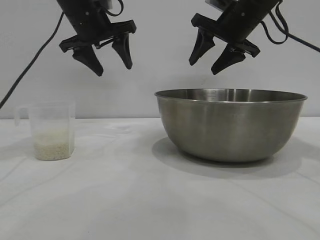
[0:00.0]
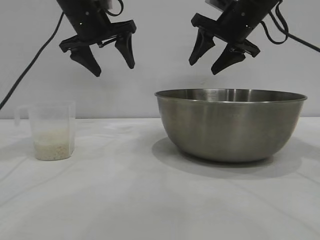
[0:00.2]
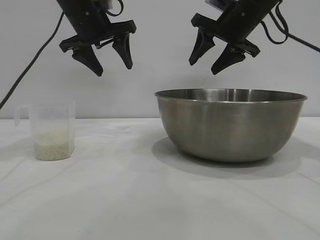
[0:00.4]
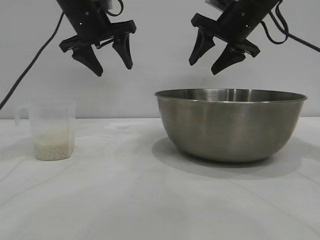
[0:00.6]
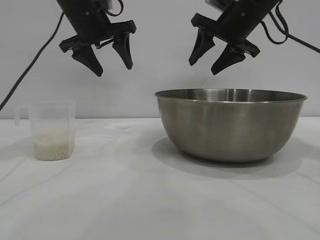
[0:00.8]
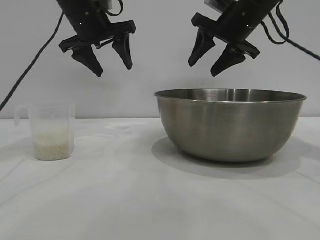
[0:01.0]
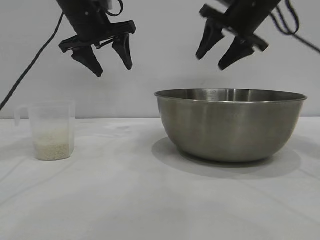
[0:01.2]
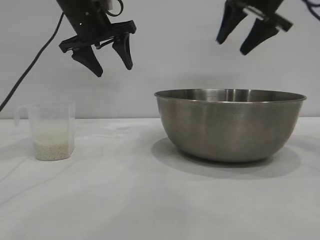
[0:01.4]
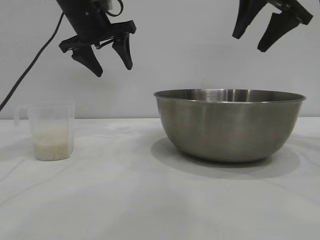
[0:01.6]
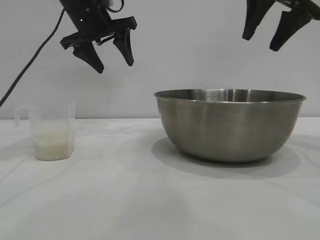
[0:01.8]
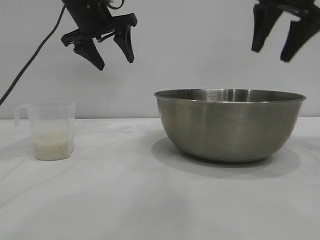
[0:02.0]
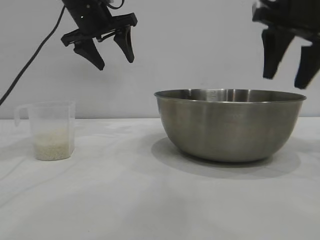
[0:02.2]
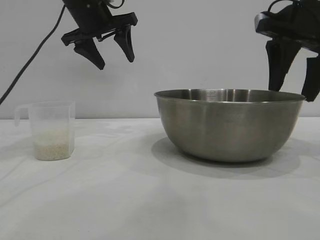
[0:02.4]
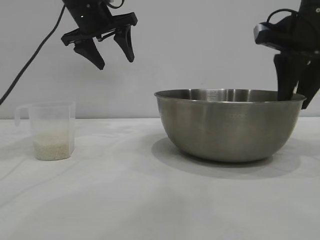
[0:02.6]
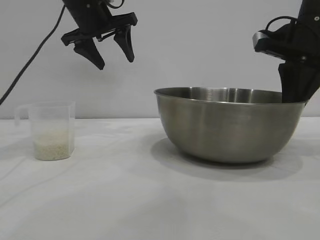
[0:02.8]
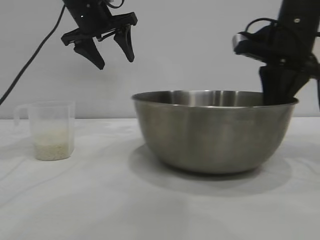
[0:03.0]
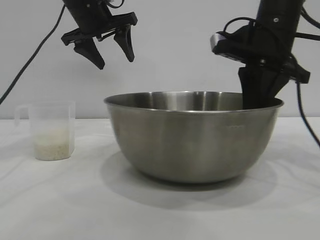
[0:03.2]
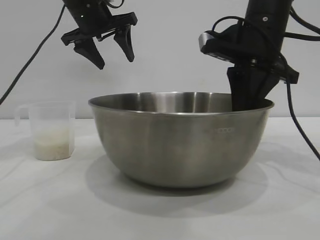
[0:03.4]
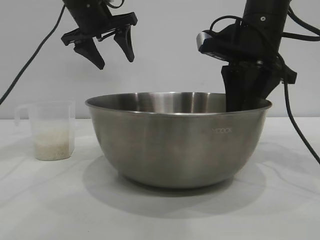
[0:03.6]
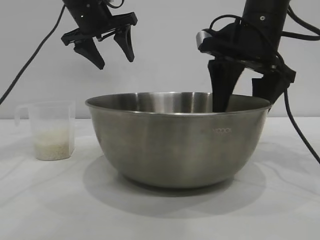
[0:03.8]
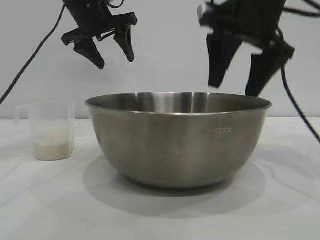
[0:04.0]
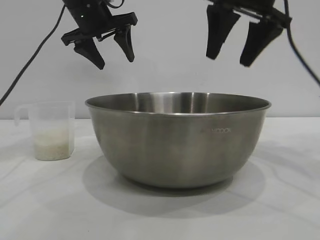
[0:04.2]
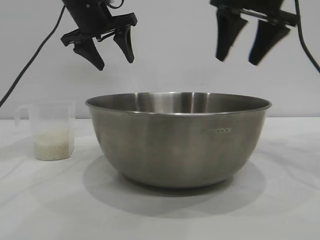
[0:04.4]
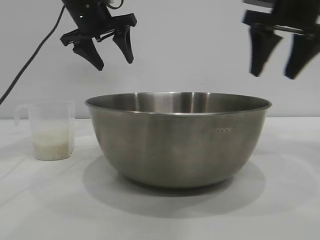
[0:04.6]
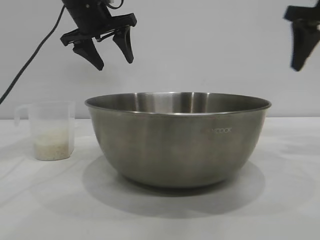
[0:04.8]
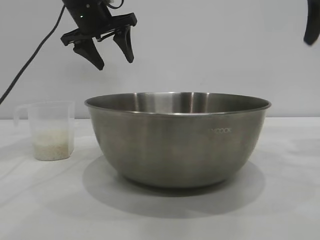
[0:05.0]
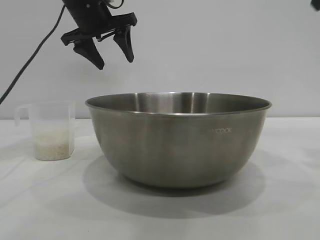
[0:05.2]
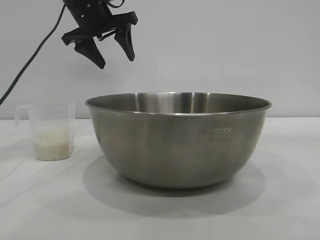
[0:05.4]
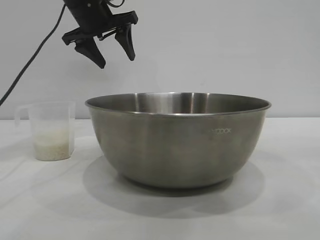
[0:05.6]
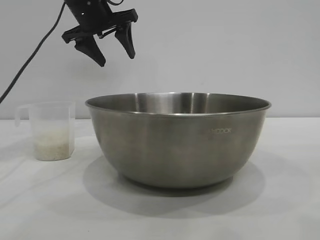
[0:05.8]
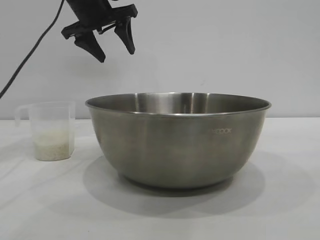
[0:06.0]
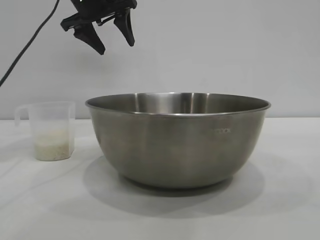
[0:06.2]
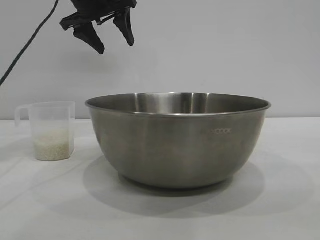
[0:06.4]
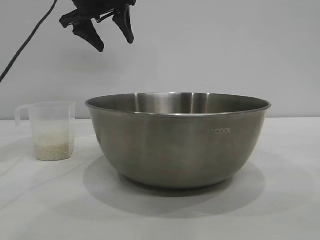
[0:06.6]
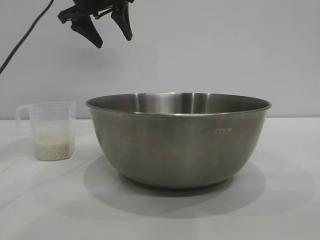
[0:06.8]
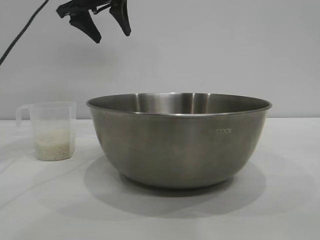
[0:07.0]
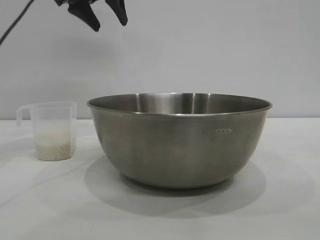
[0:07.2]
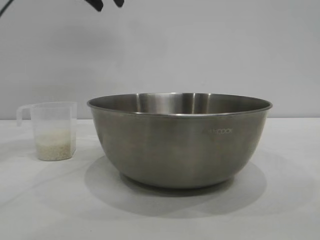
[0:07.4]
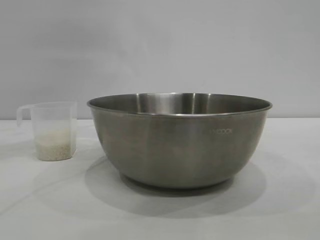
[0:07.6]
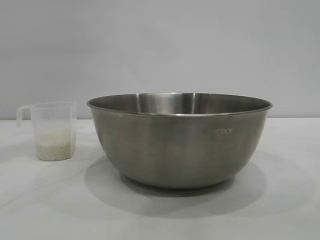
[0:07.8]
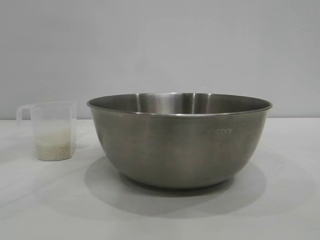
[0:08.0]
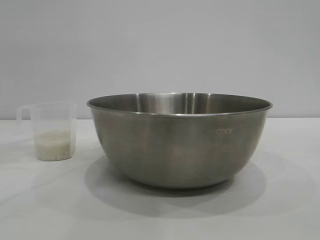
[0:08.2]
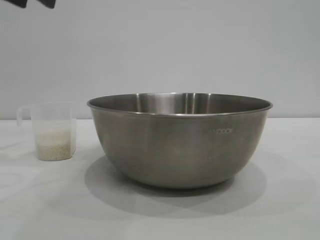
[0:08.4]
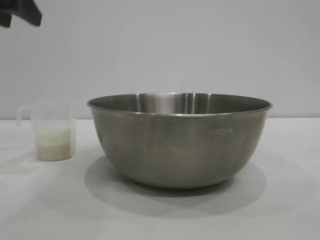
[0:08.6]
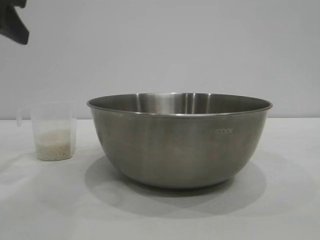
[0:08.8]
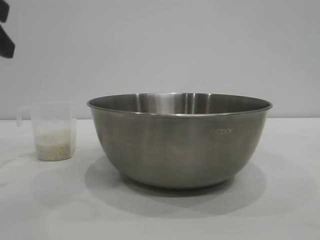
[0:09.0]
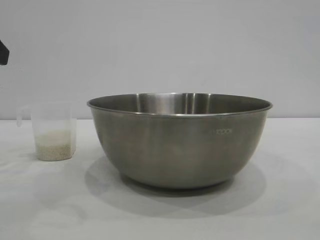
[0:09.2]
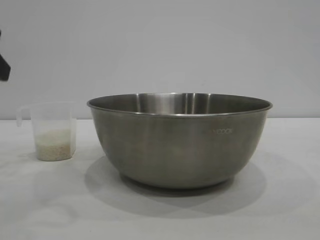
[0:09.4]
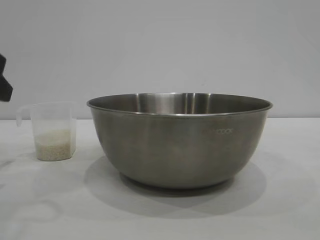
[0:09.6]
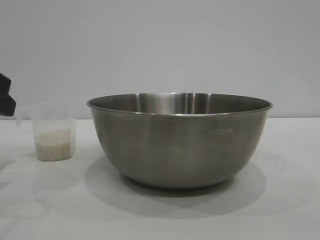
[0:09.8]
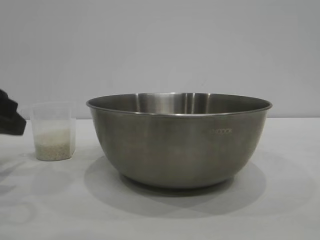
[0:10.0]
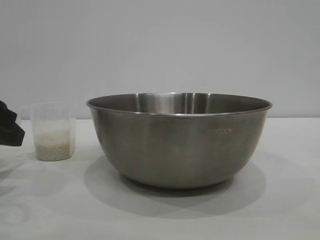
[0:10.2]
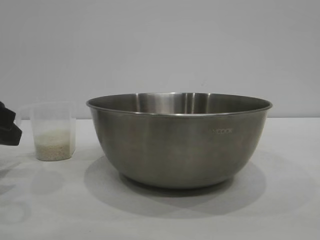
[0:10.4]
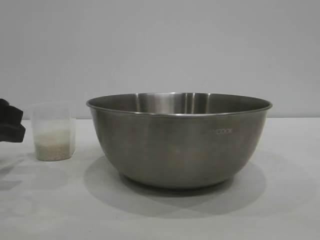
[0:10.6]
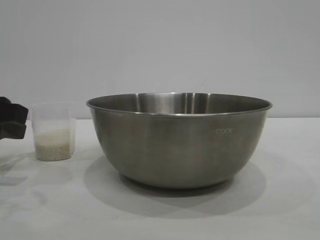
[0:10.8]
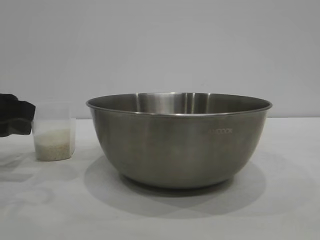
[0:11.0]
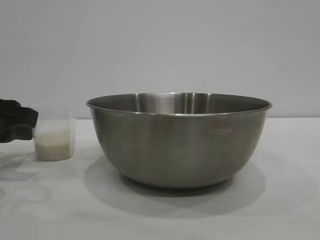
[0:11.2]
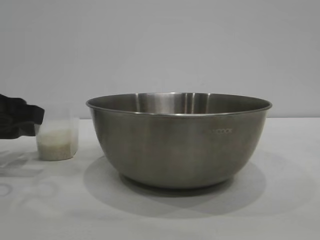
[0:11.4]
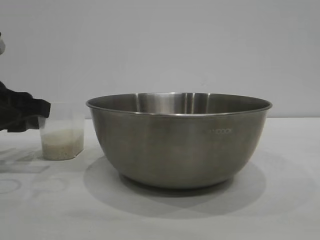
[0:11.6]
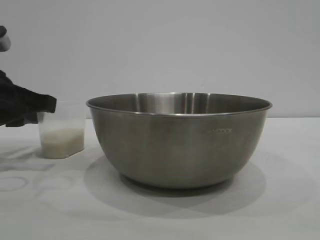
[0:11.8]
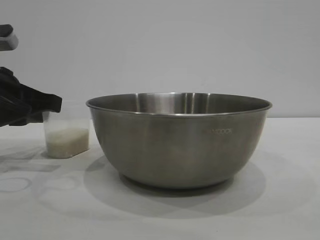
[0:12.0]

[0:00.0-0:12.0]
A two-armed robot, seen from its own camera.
Task of the whole recording: the right gripper grasp the rice container and place it in the center of the table, the left gripper grasp the rice scoop and pour the rice into the rice container.
Step, 0:00.0 to 0:04.0: Move the bowl to the center of view with the right gripper.

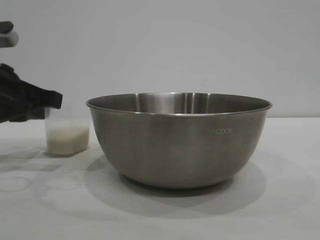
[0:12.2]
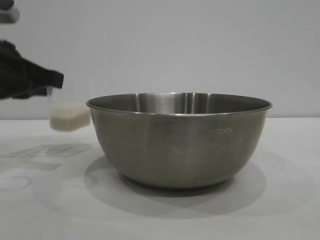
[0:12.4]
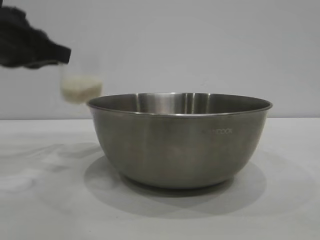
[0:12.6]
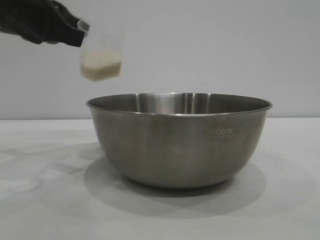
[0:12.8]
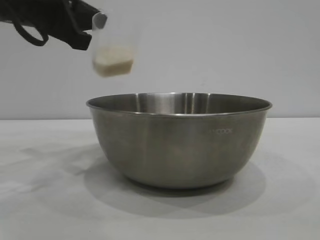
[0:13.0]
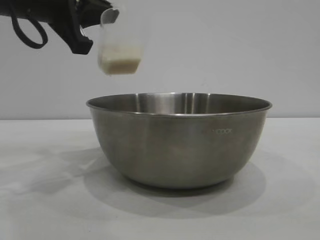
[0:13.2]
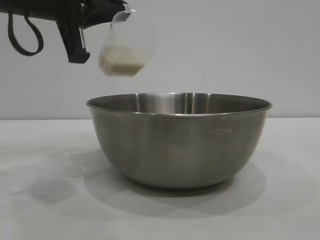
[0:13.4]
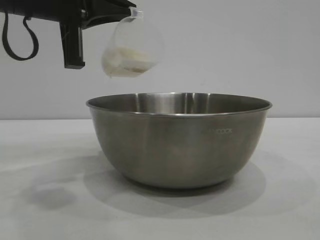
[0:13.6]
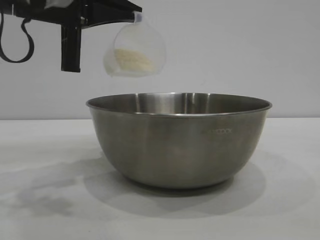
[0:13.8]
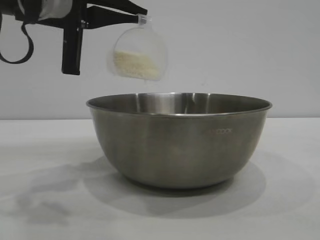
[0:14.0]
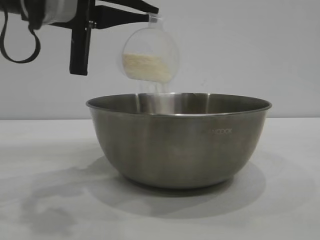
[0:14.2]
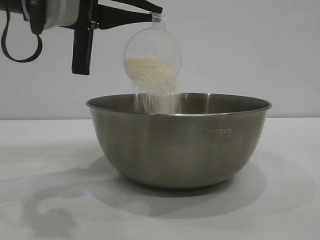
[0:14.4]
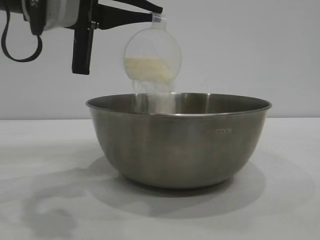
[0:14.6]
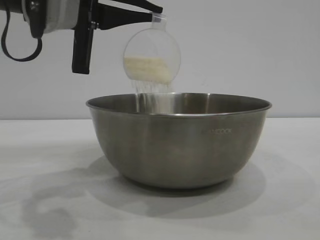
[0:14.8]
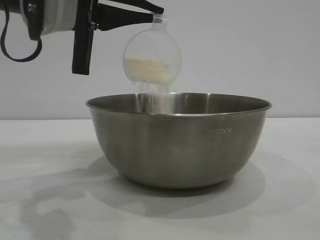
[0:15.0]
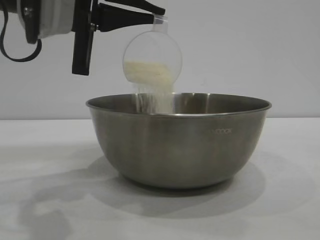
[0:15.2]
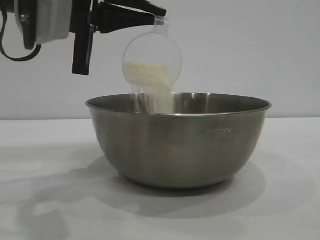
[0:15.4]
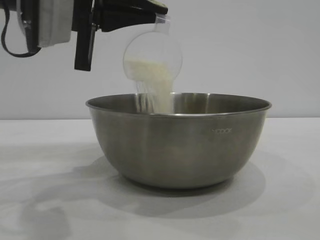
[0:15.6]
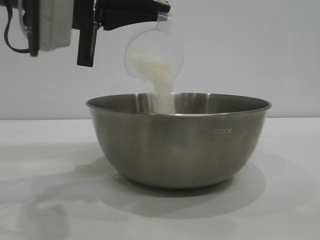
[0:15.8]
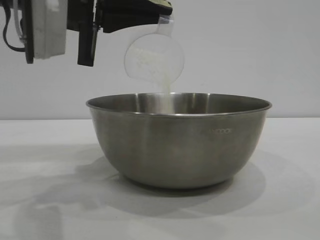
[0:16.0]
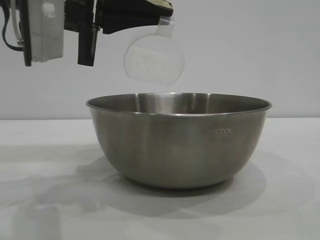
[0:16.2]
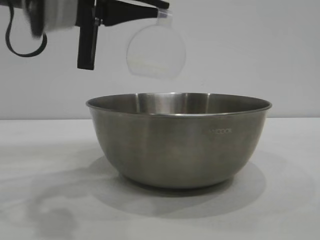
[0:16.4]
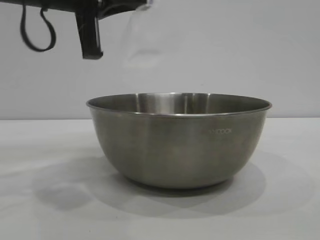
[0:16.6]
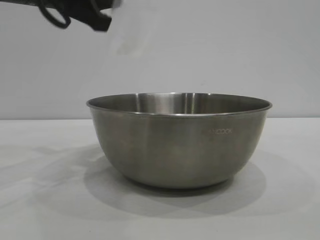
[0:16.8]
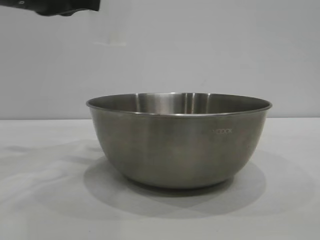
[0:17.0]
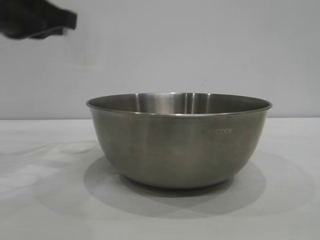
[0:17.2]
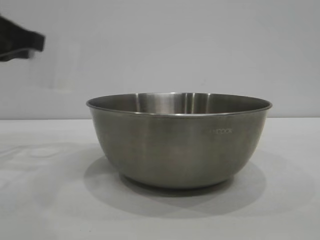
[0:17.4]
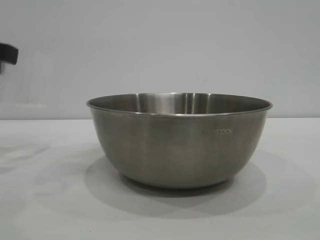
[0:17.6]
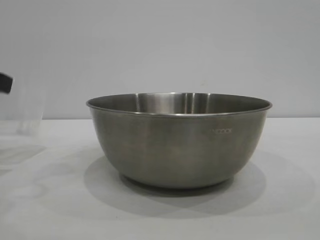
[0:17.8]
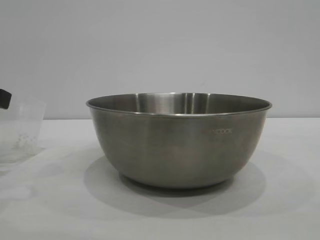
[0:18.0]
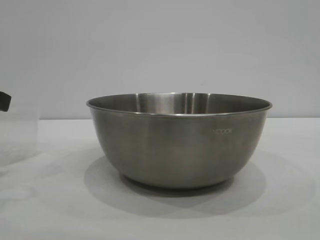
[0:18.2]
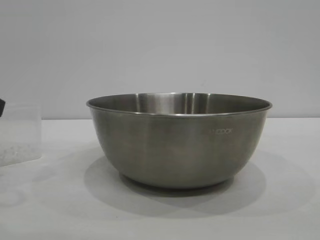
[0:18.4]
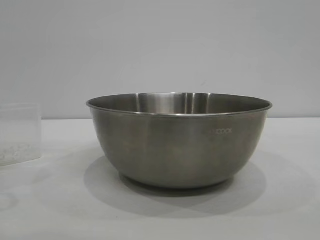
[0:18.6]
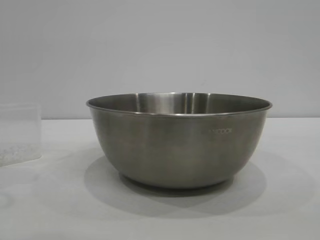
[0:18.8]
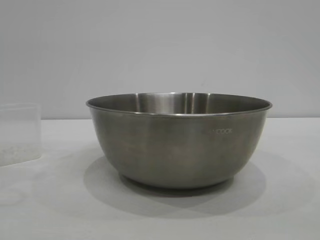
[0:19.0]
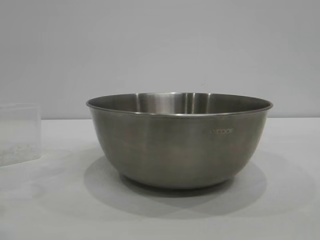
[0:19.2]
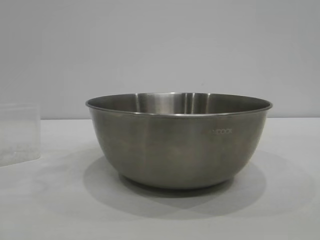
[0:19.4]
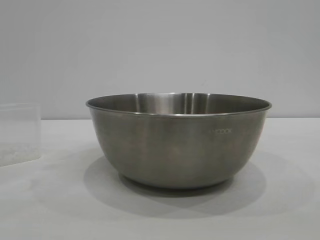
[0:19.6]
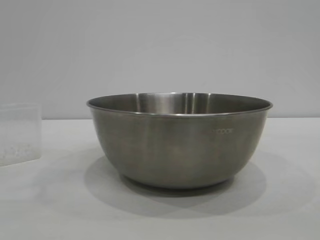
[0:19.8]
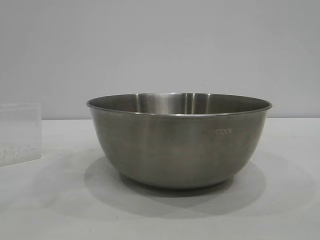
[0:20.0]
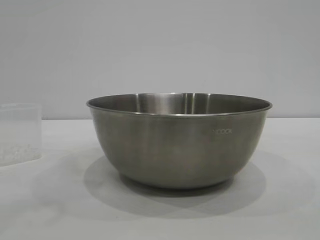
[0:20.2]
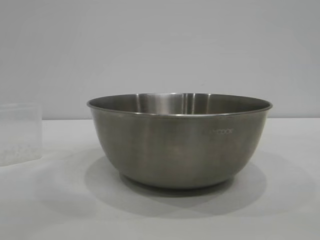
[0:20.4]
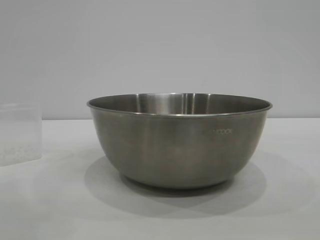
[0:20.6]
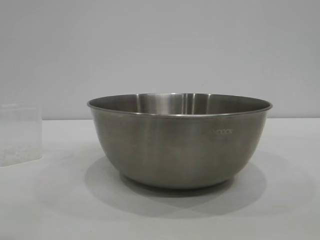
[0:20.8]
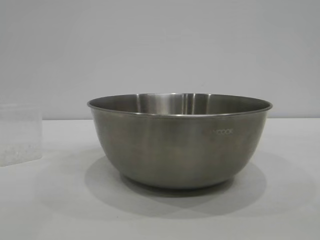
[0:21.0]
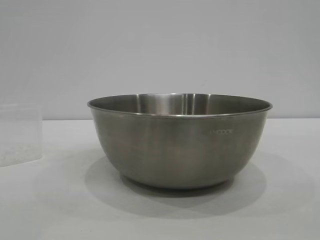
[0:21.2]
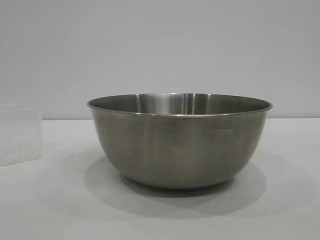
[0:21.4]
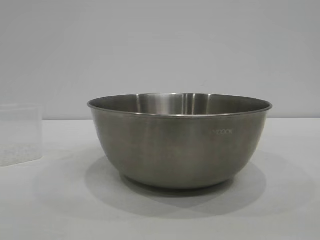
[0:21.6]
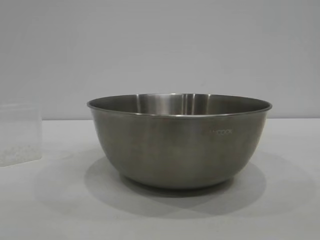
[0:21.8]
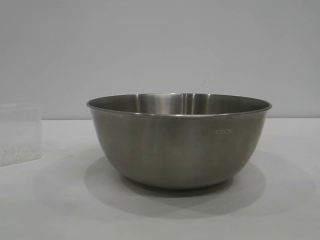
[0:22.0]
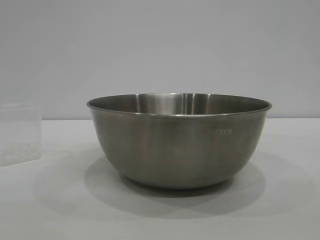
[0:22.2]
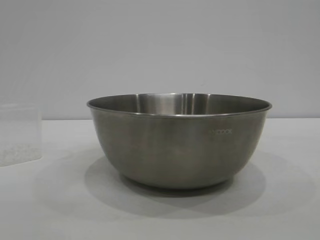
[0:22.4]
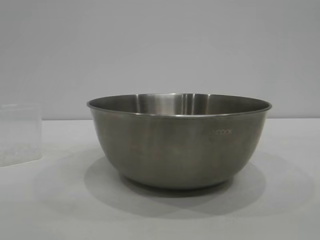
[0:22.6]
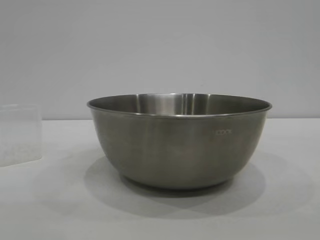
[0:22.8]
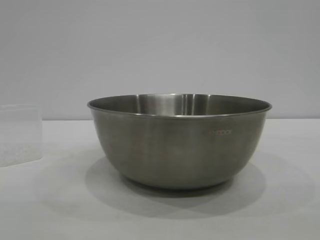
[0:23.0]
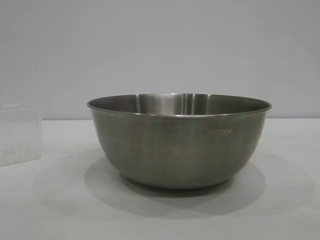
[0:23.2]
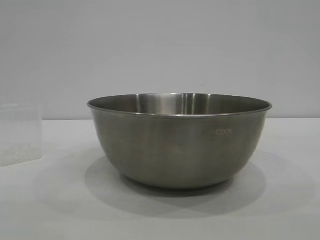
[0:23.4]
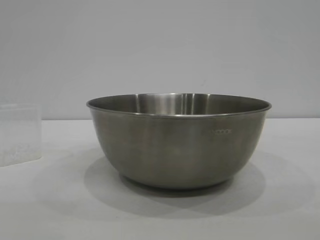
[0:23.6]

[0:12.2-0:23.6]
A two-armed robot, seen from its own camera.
Task of the whole recording: the right gripper grasp the rice container and place it in the center of the table, the left gripper grasp the rice scoop and pour the rice into the rice container.
Step, 0:12.6 to 0:16.4: Pour the rice from the cup into the bowl with the left gripper.
Step, 0:16.6 to 0:19.2: Place the cup on the table with the left gripper.
